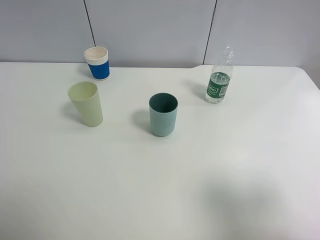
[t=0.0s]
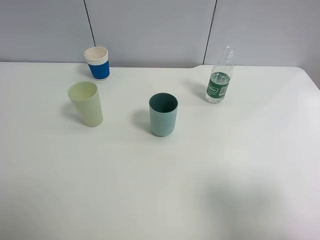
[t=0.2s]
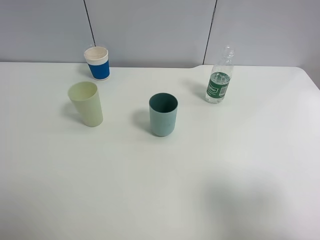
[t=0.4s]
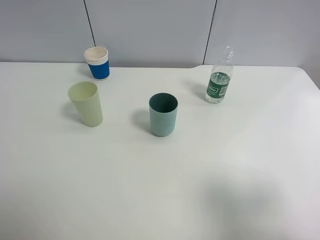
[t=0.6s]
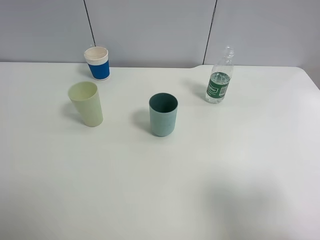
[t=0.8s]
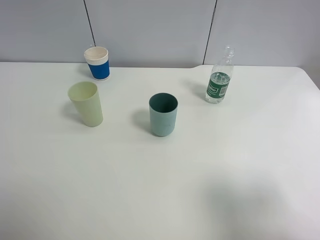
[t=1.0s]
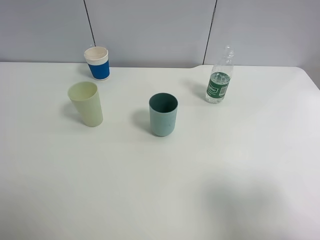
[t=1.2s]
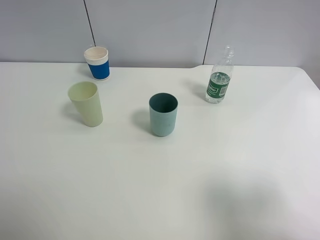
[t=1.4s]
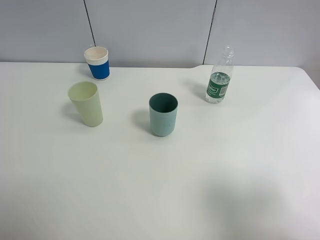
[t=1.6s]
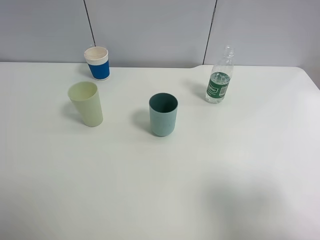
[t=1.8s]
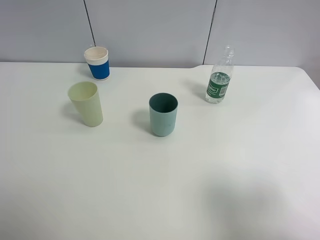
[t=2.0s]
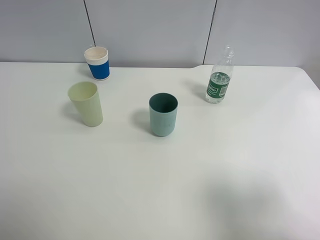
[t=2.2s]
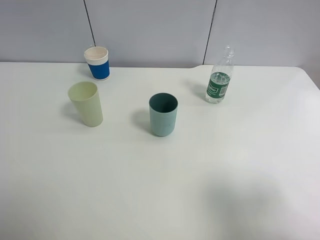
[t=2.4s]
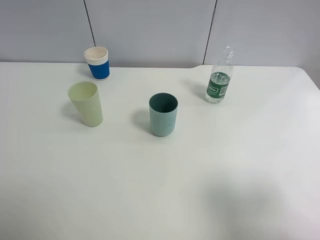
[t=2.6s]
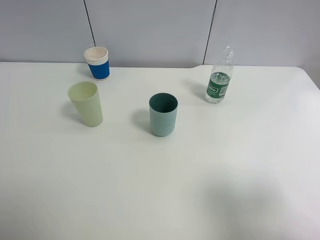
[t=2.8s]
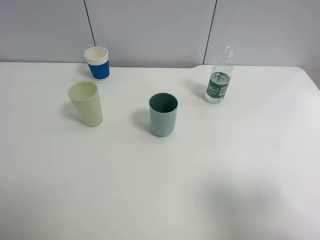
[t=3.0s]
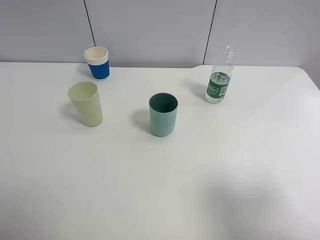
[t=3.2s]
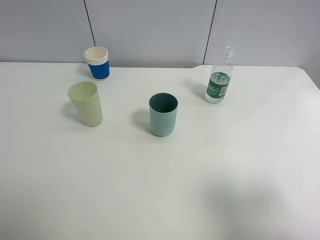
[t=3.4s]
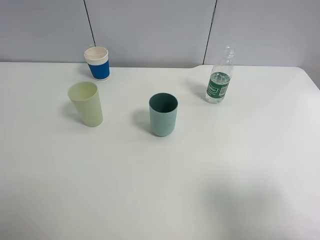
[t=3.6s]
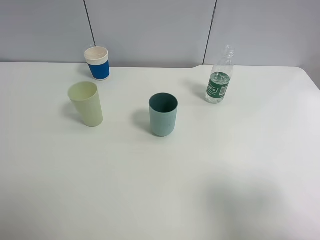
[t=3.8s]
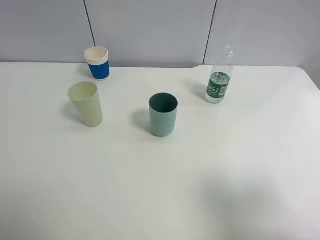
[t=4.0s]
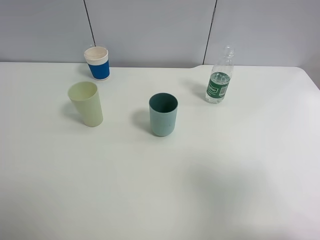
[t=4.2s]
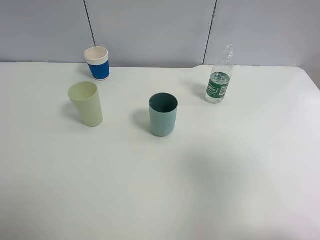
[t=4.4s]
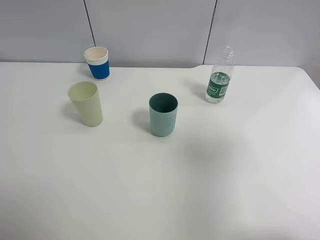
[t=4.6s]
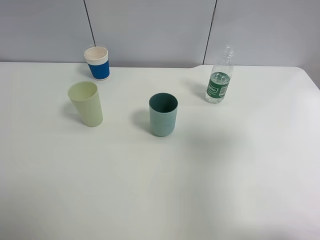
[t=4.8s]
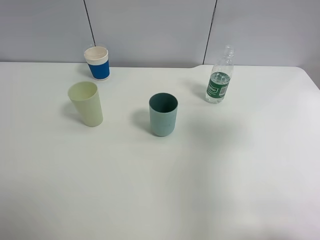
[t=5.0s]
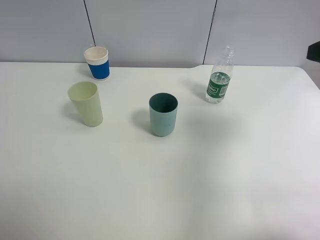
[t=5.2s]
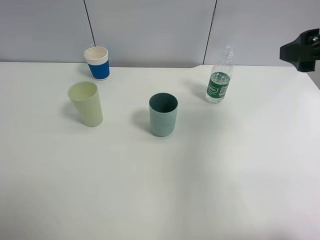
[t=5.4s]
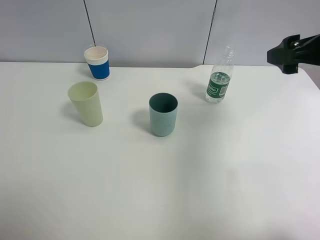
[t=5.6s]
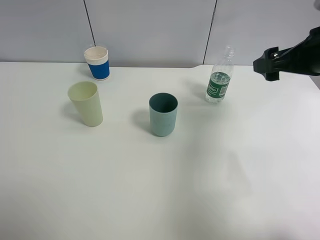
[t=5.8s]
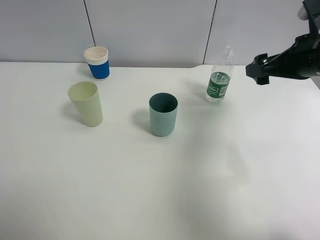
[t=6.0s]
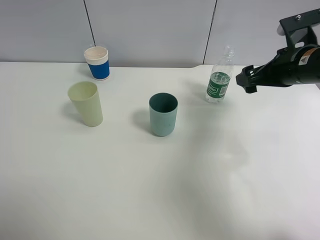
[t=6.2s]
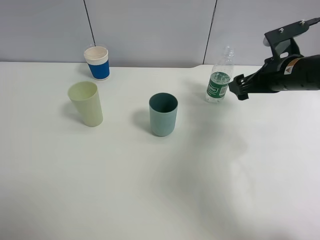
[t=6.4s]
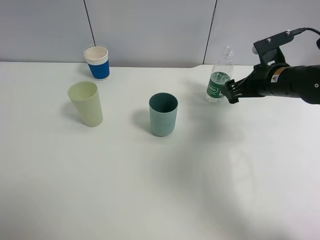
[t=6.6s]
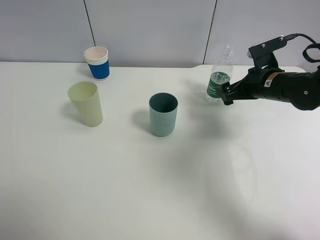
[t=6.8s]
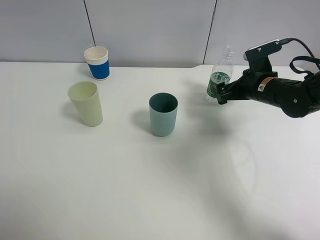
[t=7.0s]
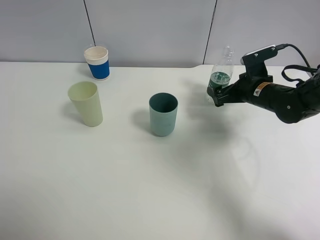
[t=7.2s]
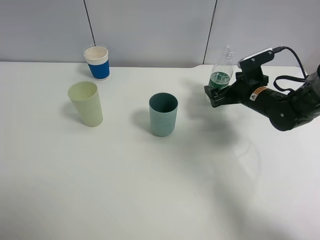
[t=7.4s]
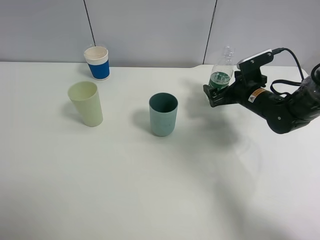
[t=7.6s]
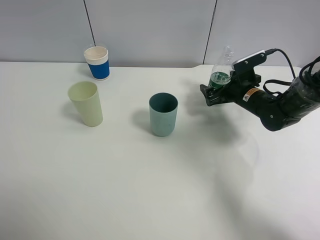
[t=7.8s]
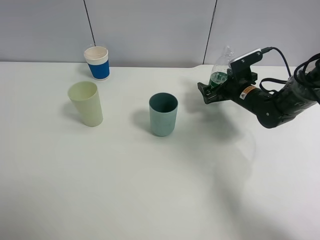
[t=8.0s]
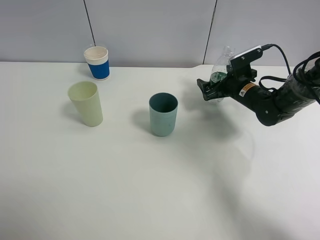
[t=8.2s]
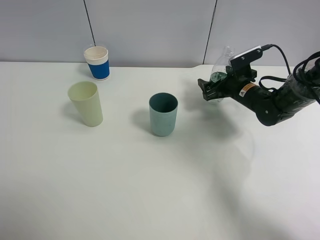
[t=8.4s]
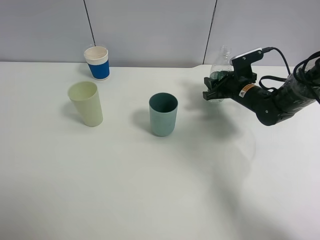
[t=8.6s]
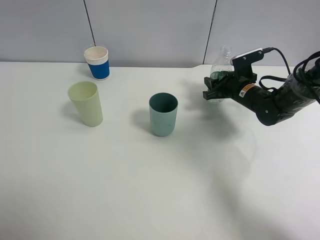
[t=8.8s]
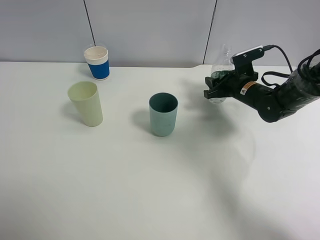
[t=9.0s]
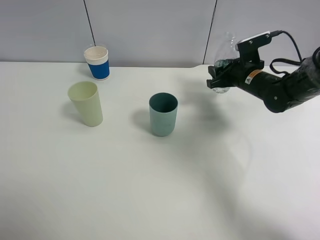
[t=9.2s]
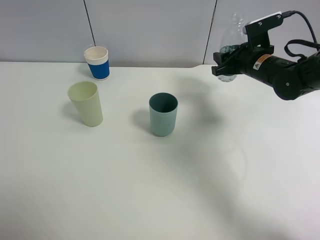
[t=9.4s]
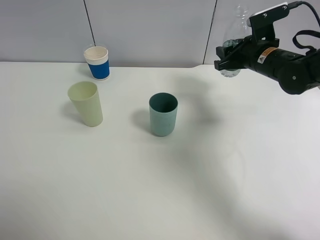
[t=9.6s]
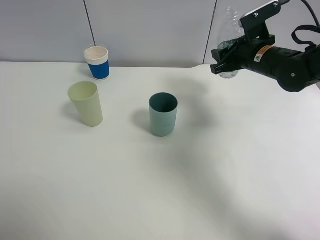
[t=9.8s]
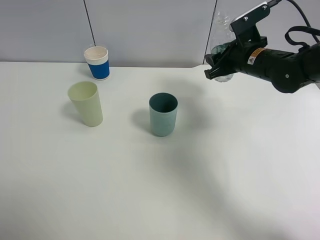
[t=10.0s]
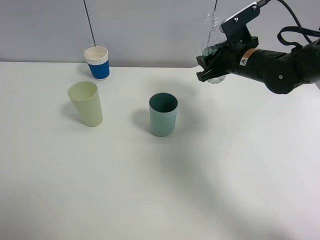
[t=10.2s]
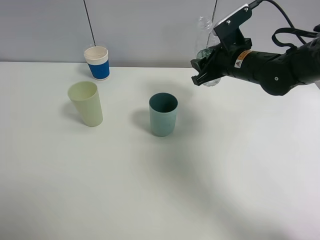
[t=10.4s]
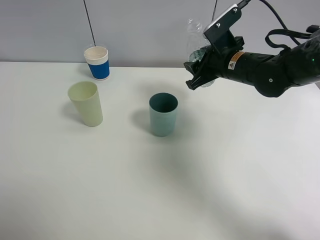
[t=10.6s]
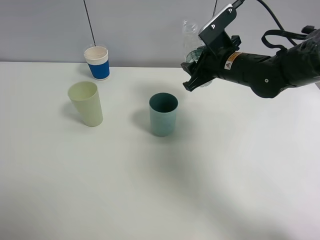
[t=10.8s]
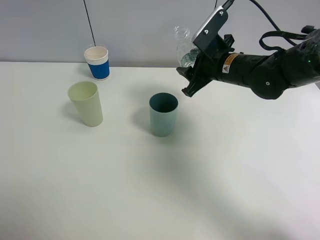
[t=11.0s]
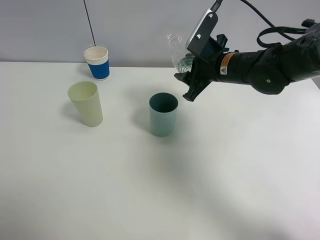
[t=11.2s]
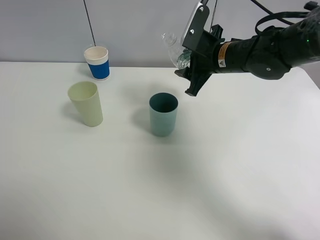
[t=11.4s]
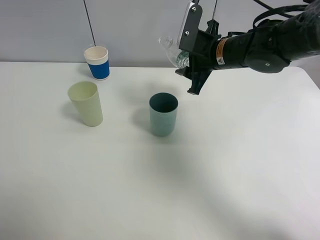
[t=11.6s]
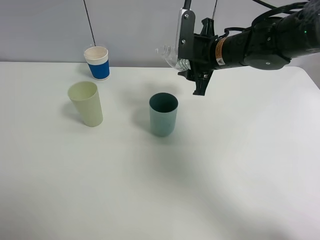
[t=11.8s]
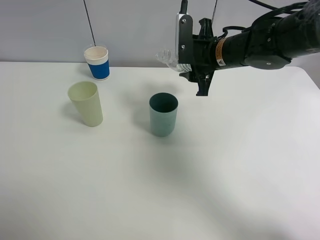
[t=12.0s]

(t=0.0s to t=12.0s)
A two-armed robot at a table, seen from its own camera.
Task of the whole recording: use a clamp to hold the bottle of the drink, pour the beverage into a random cup, then clamp the cup containing the drink and pour the drink into another random cup.
Step, t=0.0s - t=10.2s: Pick up the water bottle with right gripper.
t=0.0s - t=3.0s: Both grippers stay put.
t=3.0s - t=4.4s: The right gripper shifts roughly 10 cm upward and forward.
t=4.4s - t=6.0s: The right gripper goes approximately 25 cm forward and downward.
t=6.0s - t=7.6s: The right gripper shifts some 15 cm downward and forward.
t=7.6s - t=9.0s: The right gripper closes.
t=9.0s - t=10.4s: The right gripper shifts approximately 10 cm upward and to the left.

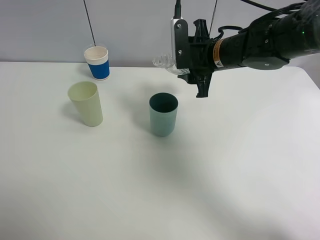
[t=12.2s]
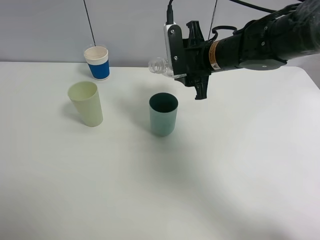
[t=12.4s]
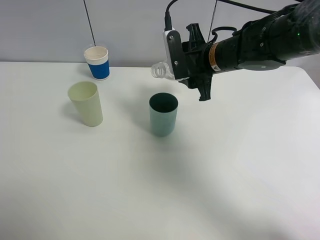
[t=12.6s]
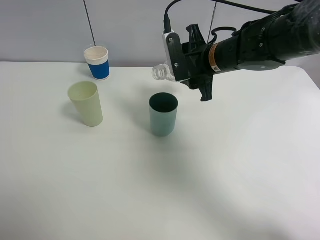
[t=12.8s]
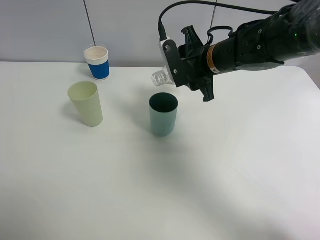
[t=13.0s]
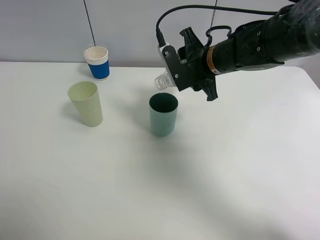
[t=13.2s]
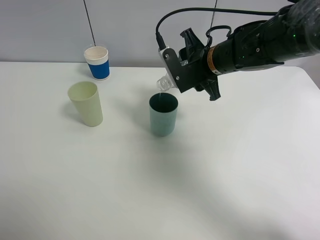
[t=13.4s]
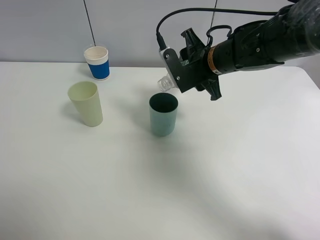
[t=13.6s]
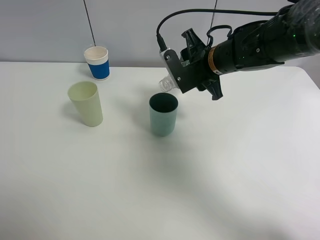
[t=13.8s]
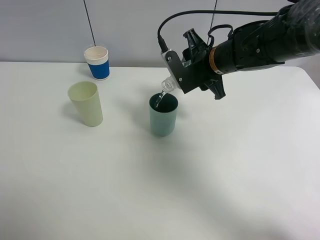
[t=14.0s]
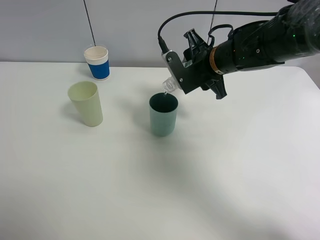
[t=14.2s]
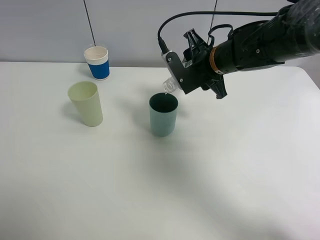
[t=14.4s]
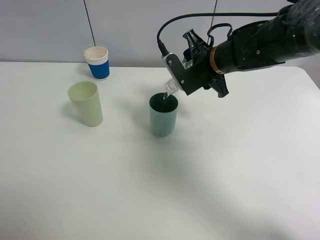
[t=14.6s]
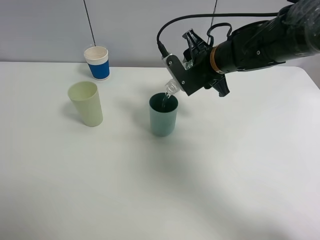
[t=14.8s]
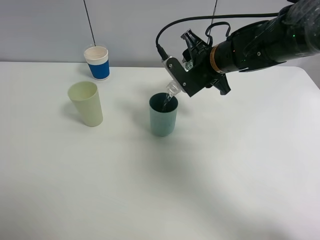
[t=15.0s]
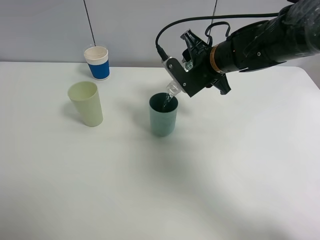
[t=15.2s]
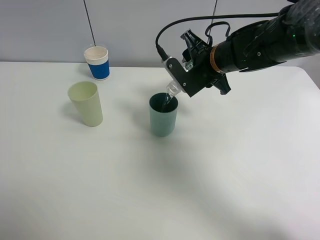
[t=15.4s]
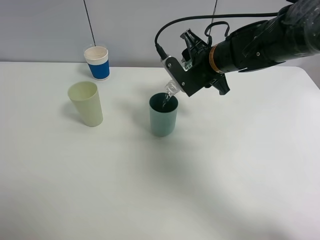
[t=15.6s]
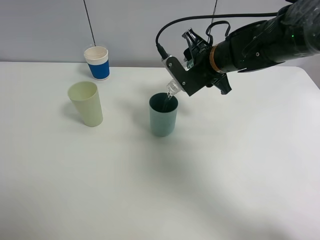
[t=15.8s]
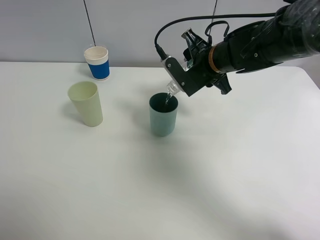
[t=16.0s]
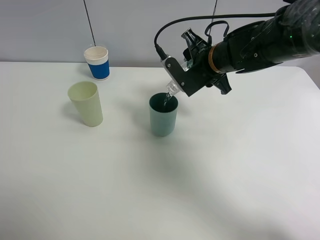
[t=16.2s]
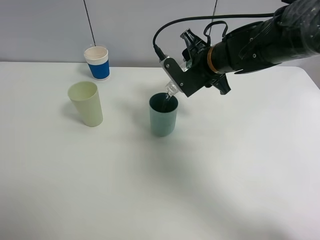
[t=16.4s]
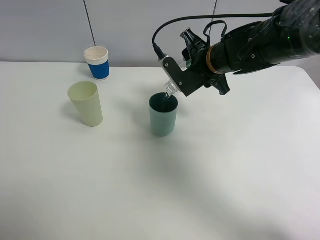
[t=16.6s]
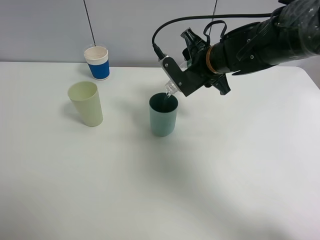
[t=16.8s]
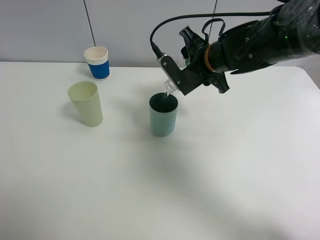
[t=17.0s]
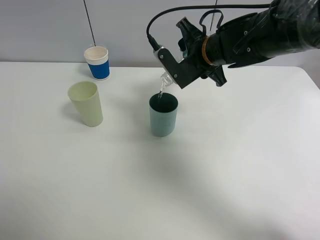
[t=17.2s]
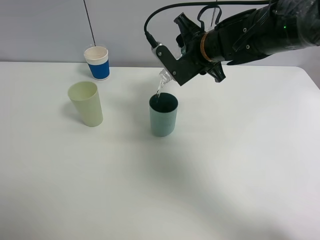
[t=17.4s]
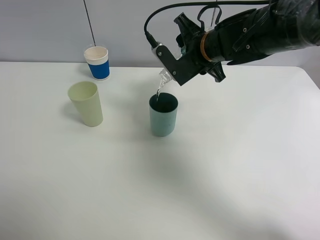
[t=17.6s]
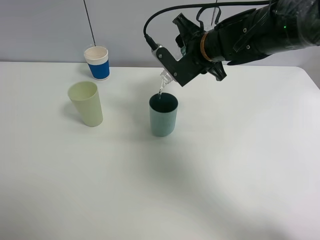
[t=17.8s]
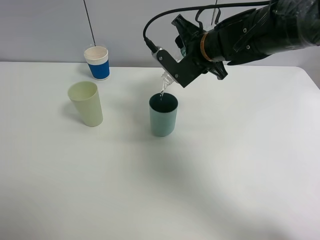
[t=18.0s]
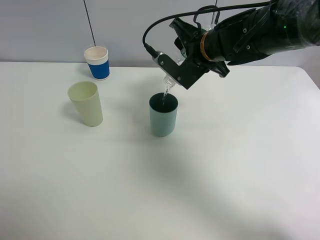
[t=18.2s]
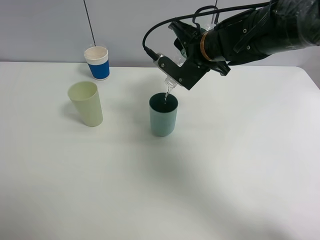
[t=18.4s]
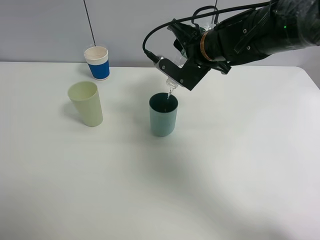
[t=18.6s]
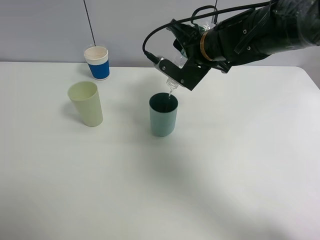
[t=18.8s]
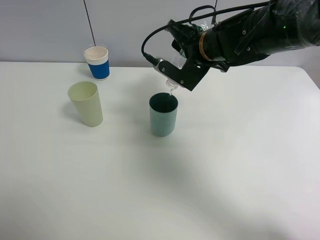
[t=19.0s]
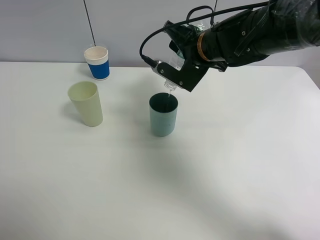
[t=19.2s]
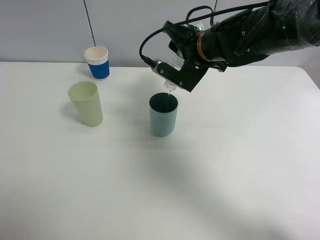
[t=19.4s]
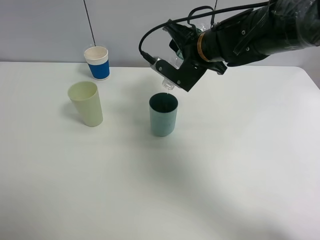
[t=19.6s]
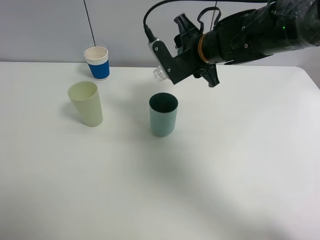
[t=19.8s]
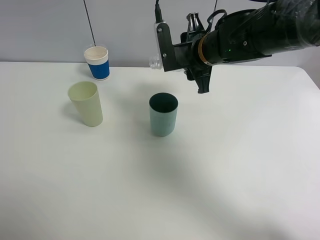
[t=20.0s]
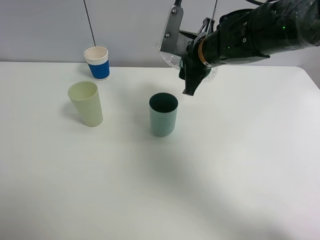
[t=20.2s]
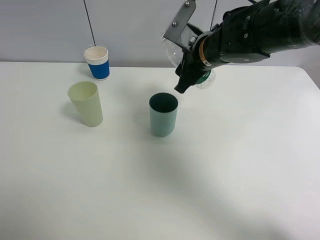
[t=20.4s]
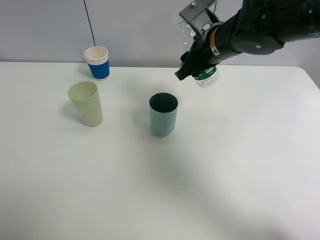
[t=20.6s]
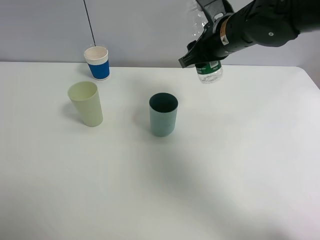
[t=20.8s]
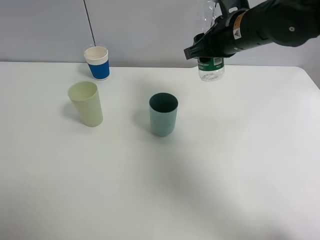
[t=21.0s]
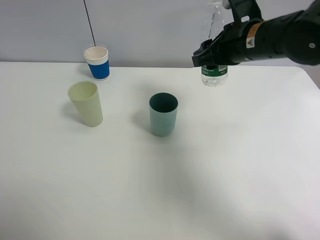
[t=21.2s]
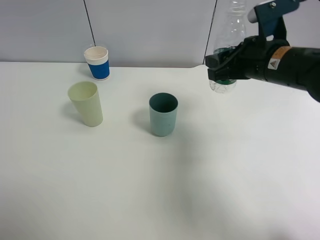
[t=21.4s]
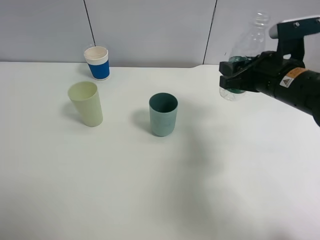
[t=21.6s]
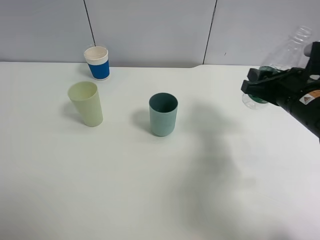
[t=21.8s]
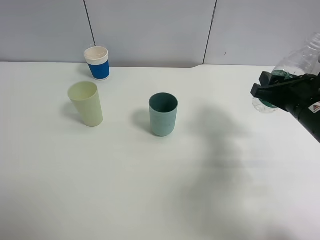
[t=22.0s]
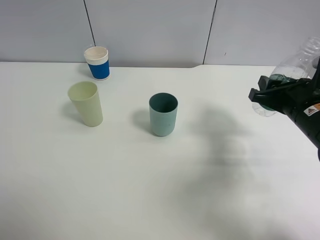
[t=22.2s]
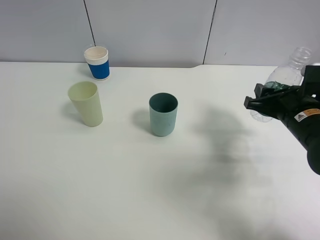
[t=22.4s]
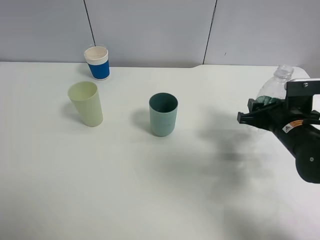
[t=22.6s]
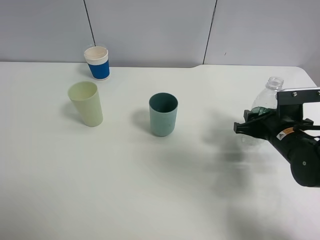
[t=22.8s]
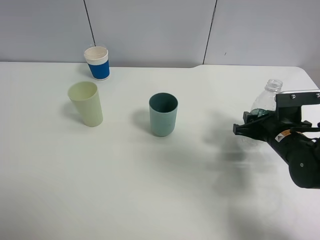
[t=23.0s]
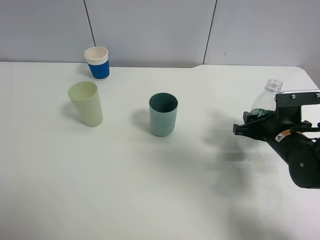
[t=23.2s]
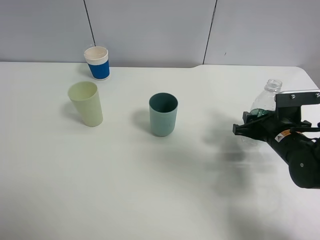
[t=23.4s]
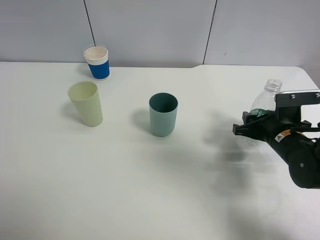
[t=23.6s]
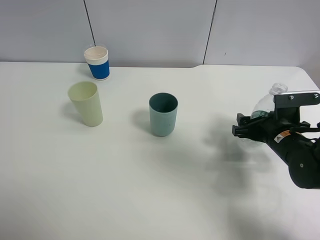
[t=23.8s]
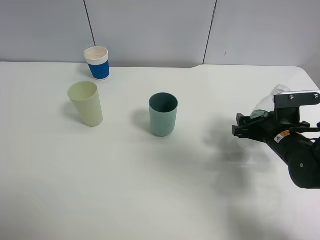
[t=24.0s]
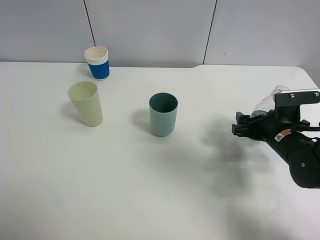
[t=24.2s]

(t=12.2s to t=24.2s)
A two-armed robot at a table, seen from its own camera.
Task of the whole recording: use a clamp to hold the bottle of the drink, pour the beverage into a random cup, then clamp the cup containing the drink and pour the drink into another random cup.
Step, t=12.2s - t=19.8s: Pour water into the blue plastic cup with right gripper.
t=13.8s - t=16.6s: The grippers move only a little.
t=16.6s - t=18.2s: The grippers make only small movements.
t=19.8s - t=21.2s: The right gripper moves to the right, roughly 5 cm.
t=21.2s - t=22.6s: The right gripper goes approximately 20 cm downward, to the right and backward.
t=22.6s - t=24.2s: The right gripper opens up.
